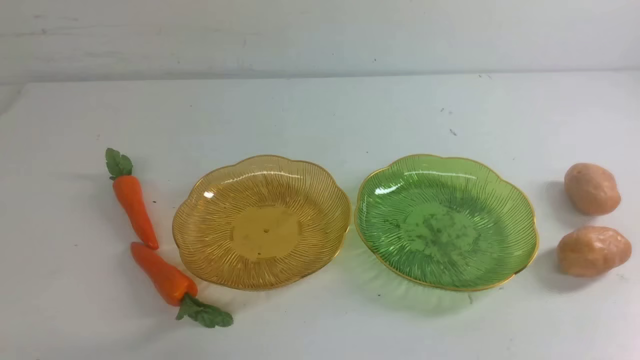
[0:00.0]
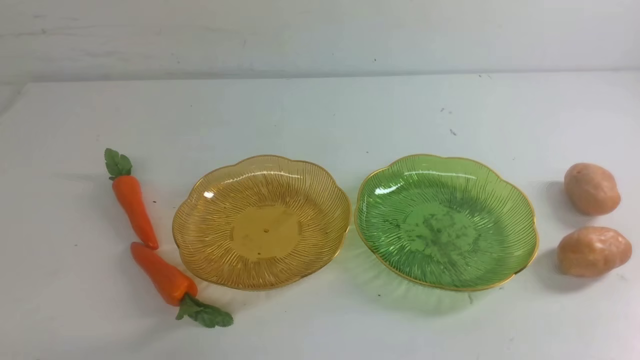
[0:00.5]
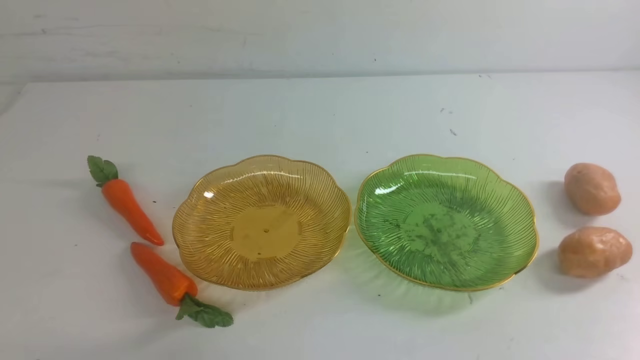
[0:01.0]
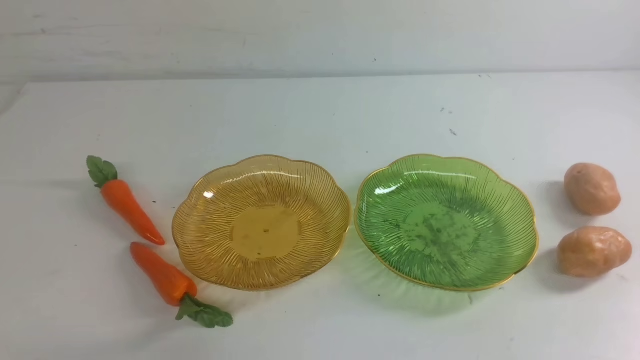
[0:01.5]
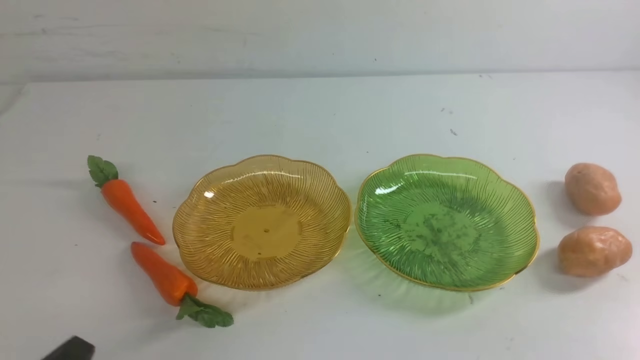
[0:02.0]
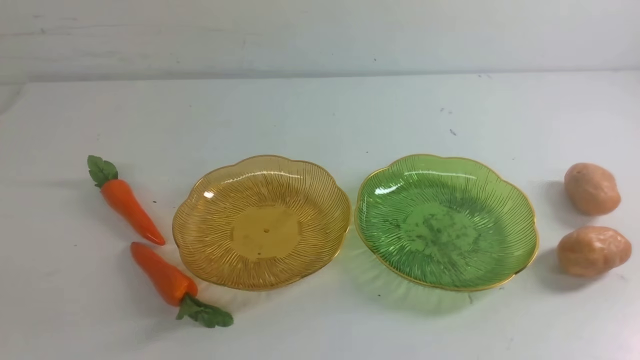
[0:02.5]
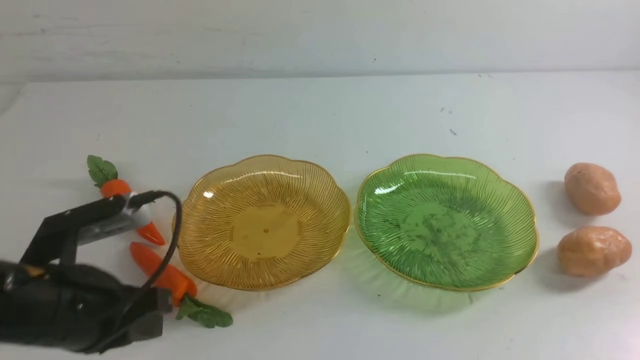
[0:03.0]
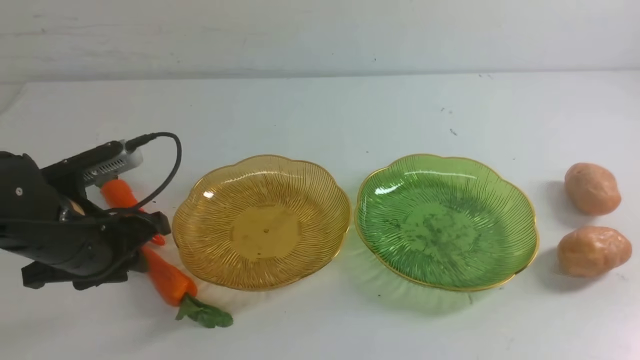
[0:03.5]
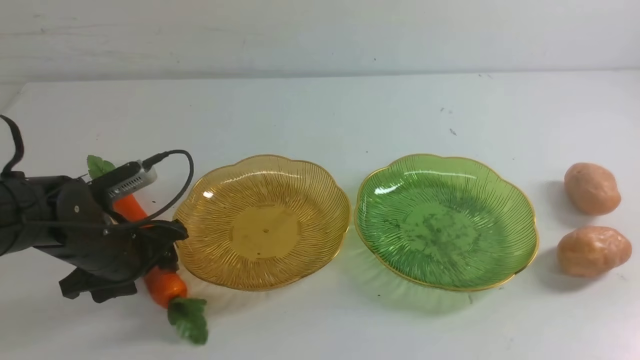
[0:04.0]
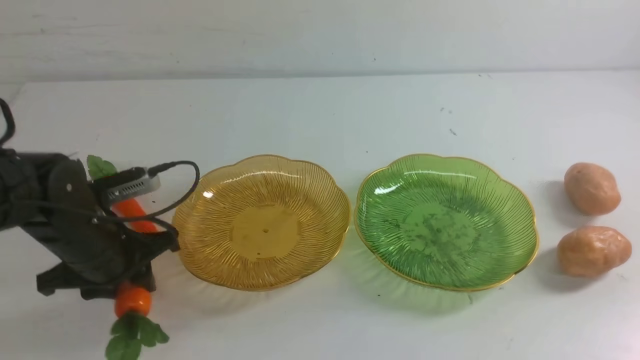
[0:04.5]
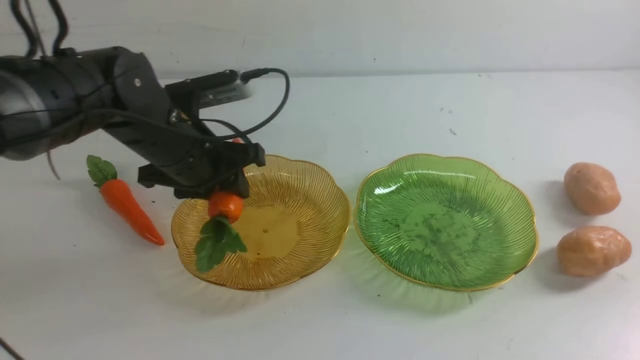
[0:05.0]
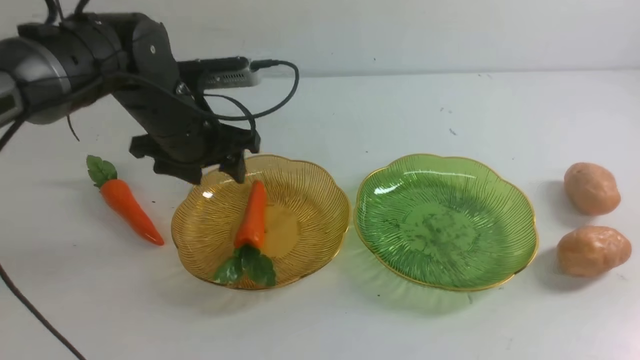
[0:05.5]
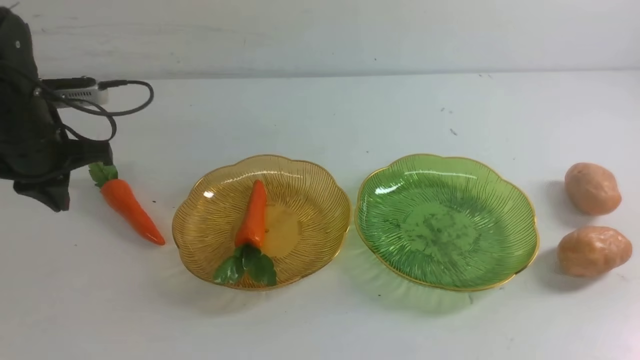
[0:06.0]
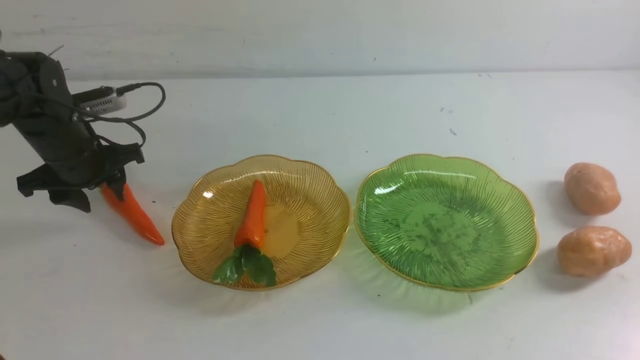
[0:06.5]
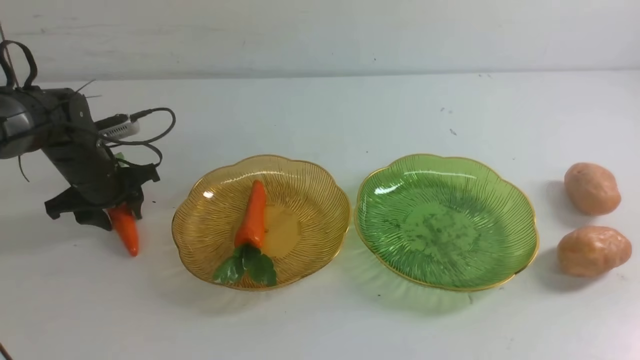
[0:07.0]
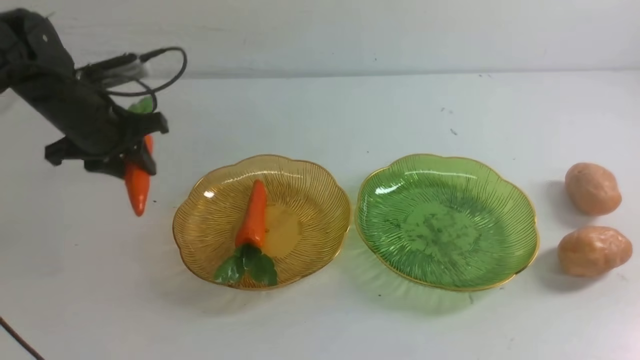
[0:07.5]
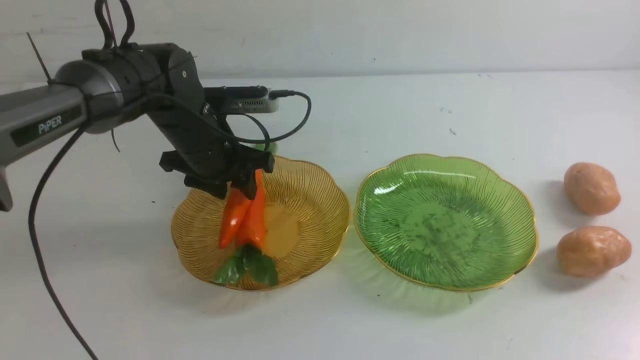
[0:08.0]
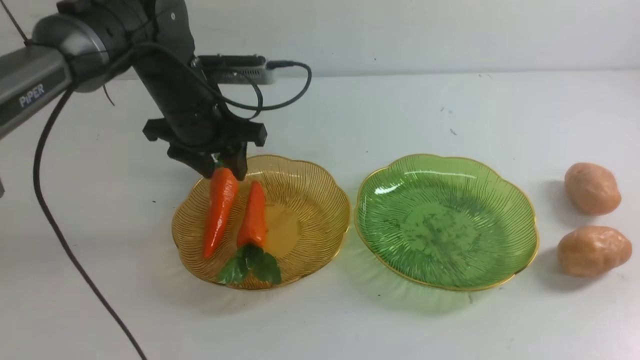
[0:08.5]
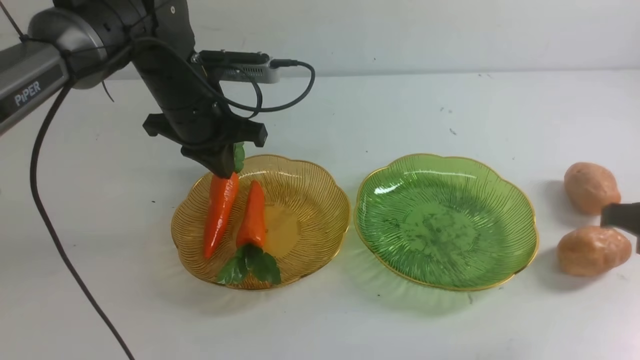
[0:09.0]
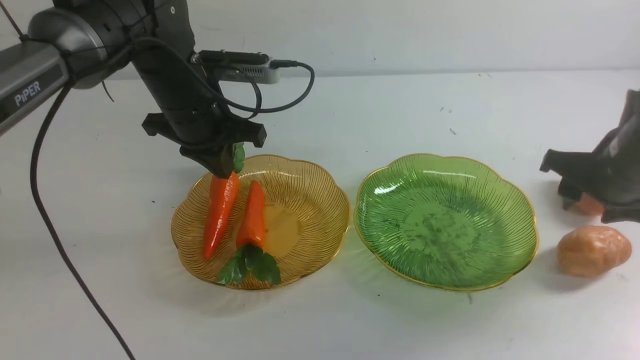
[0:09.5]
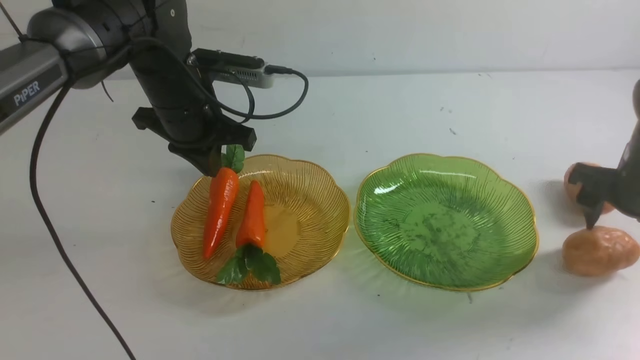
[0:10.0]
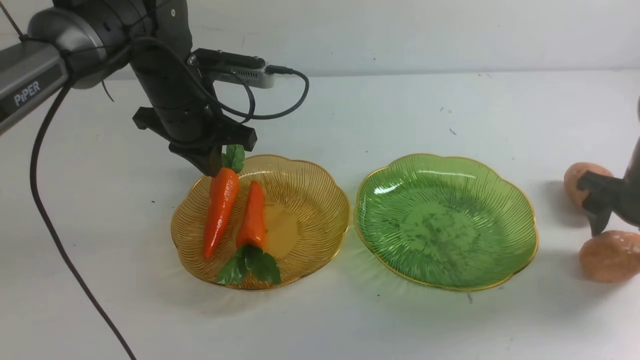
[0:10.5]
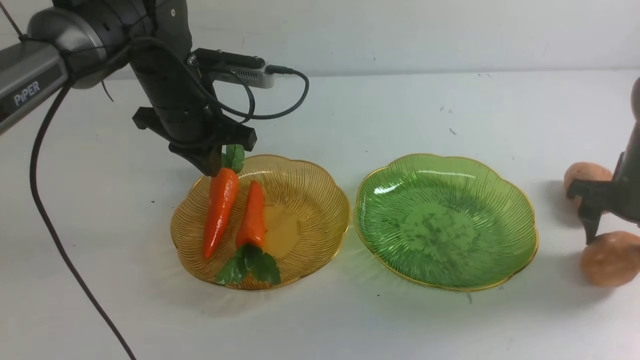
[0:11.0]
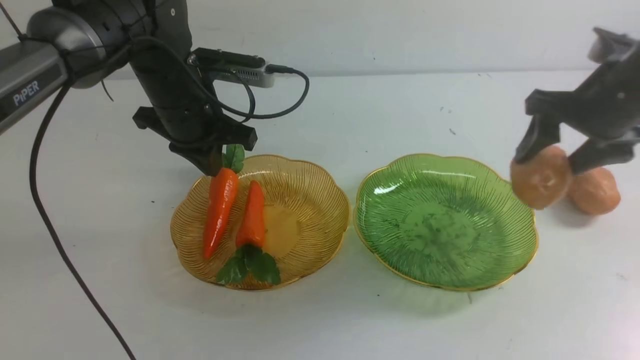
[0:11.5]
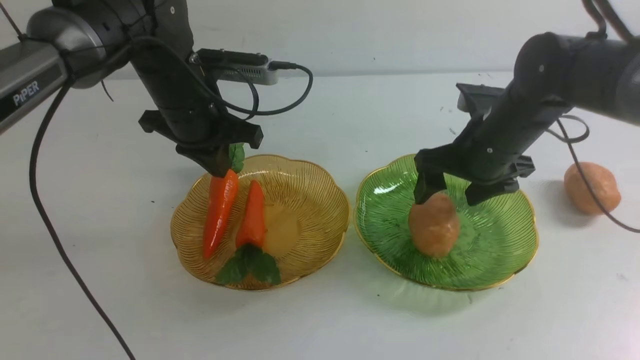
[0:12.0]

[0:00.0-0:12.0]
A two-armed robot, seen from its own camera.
Step, 0:00.0 to 0:08.0: use the left arm to grab a carrot and put it into the left plate.
0:02.0 to 0:04.0: The left gripper is displaced forward by approximately 25 cm, and opens up.
0:04.0 to 0:06.0: The left gripper is displaced forward, upward and to the left by some 15 cm, and closes its fingers.
0:06.0 to 0:08.0: The left gripper goes roughly 15 cm to the right, and opens up.
0:08.0 to 0:10.0: The left gripper closes. Meanwhile the right gripper heads forward and downward, covering roughly 30 cm, and opens.
0:10.0 to 0:12.0: The right gripper moves to the left and upward, about 15 cm.

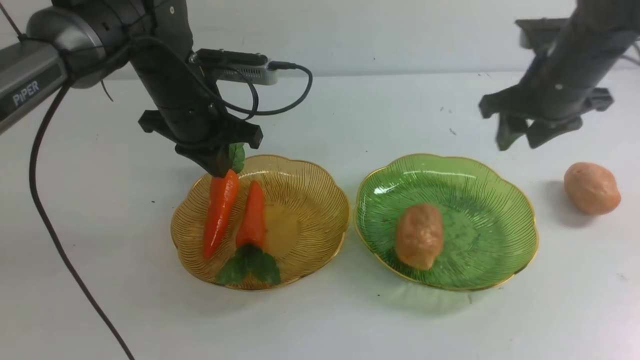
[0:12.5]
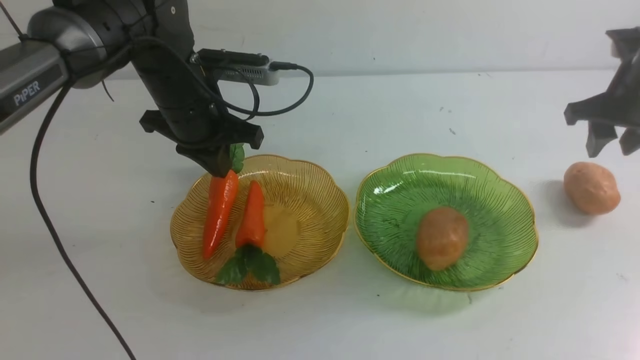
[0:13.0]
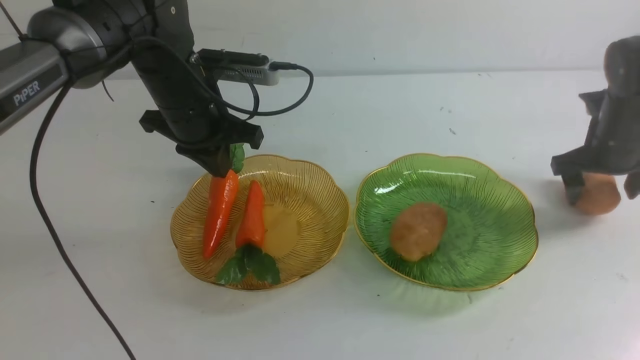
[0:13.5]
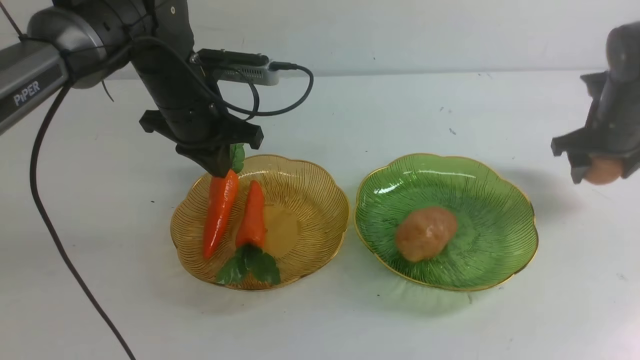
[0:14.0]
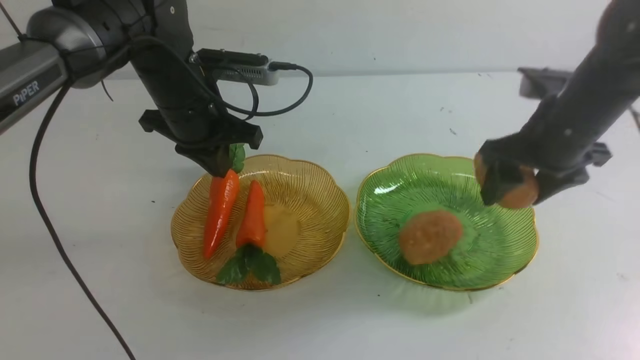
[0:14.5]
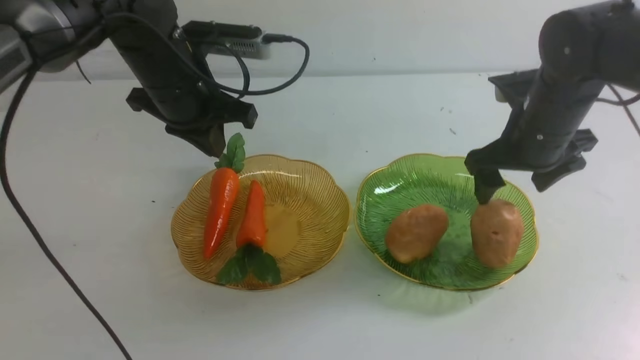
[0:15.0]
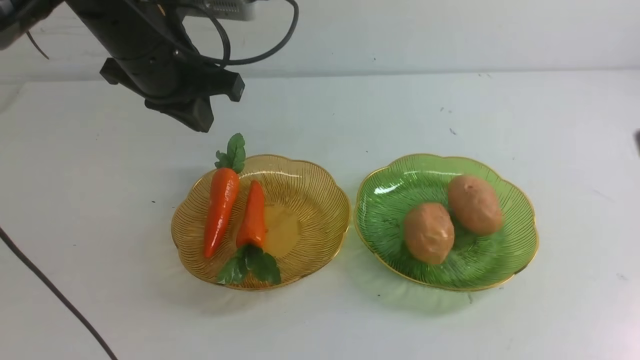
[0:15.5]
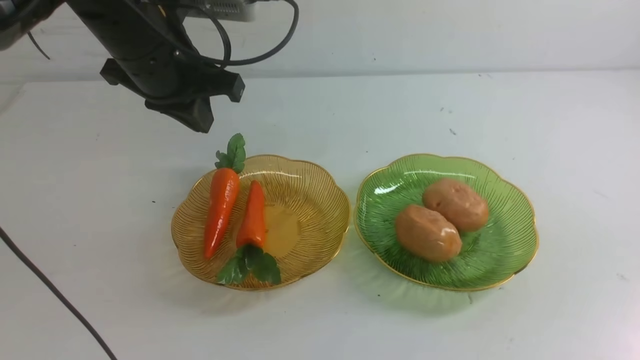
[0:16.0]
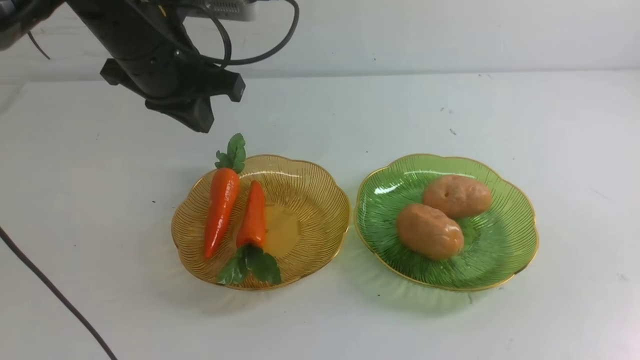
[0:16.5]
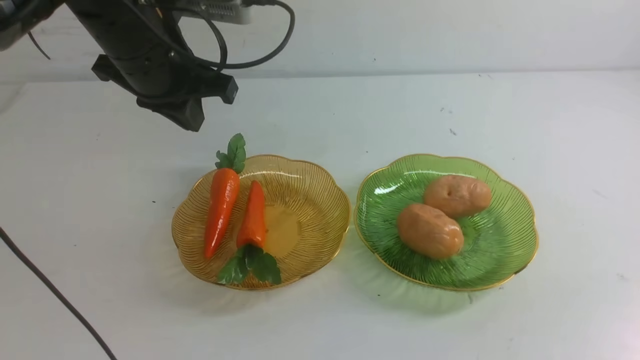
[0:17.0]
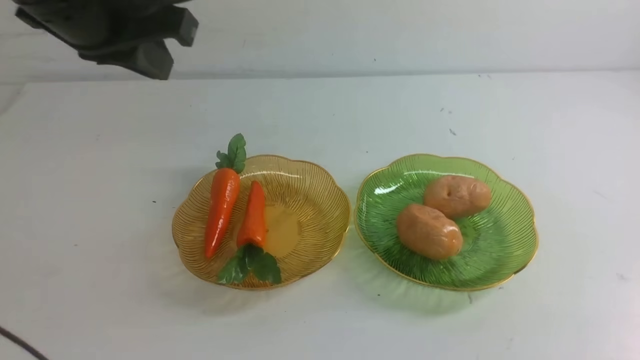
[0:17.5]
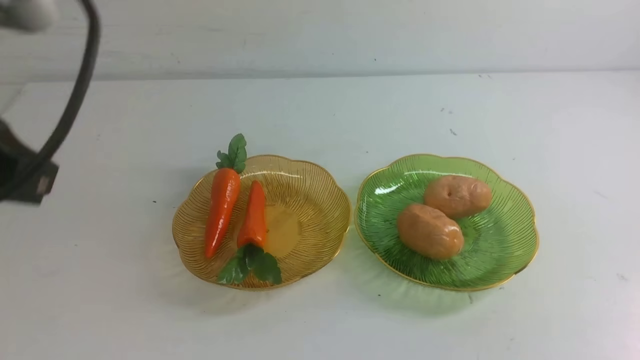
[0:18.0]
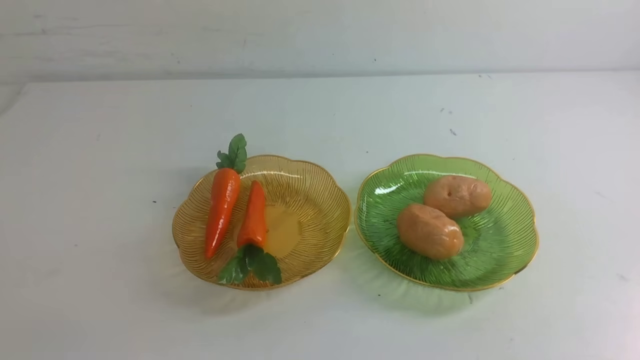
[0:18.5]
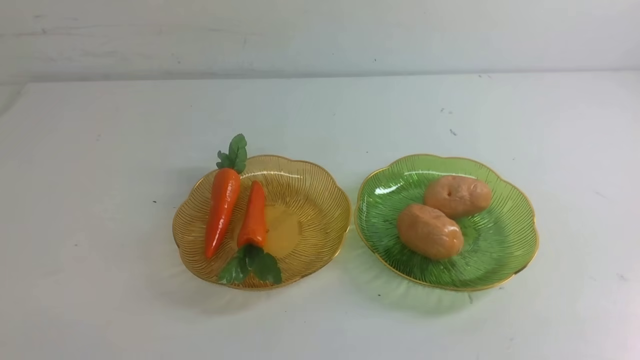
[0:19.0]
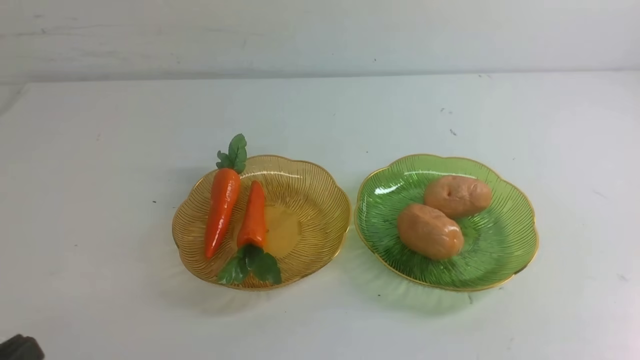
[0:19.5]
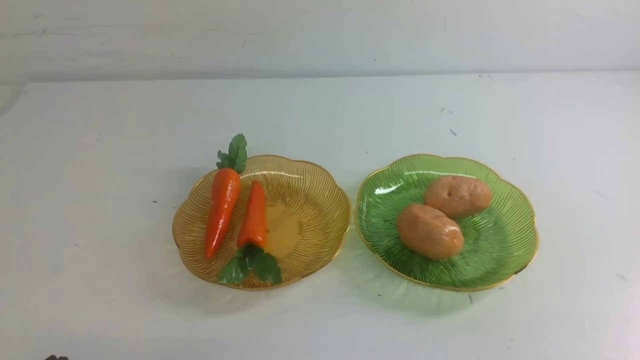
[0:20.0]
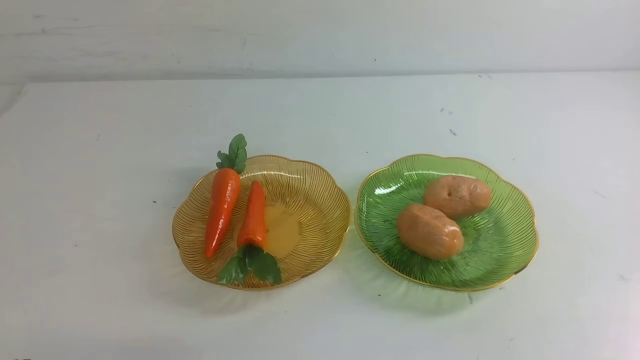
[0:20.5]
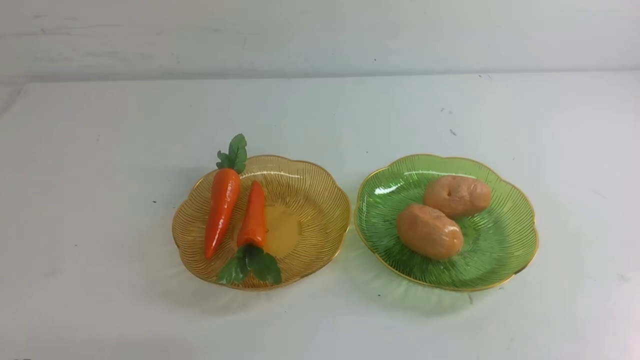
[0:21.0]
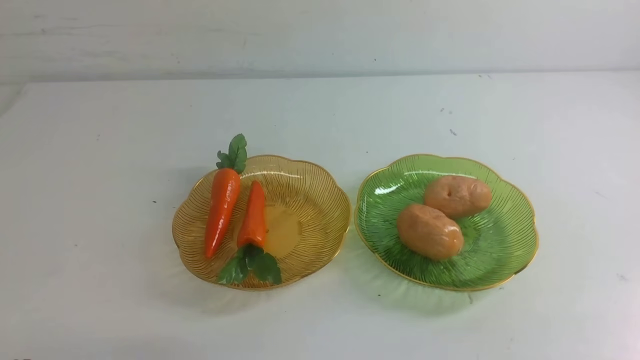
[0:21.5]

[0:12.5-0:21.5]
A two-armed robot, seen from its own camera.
Step, 0:12.5 to 0:15.0: Grab a potato with your right arm and put it on the right plate.
0:12.5 to 0:14.5: The right gripper moves backward, upward and to the left, about 20 cm, and opens, then closes once more; the left gripper travels upward by about 5 cm.
0:14.5 to 0:17.0: The left gripper shifts some 20 cm backward and upward, while the right gripper heads backward and downward, covering about 30 cm, and closes.
0:17.0 to 0:19.5: The left gripper moves downward and backward, about 30 cm.
